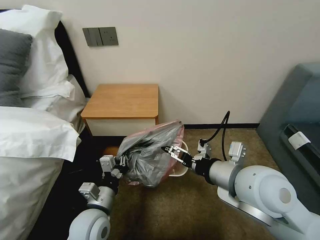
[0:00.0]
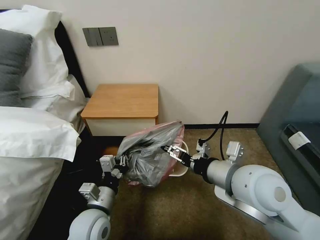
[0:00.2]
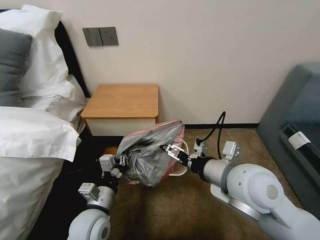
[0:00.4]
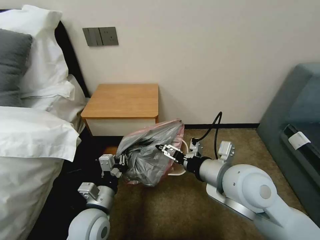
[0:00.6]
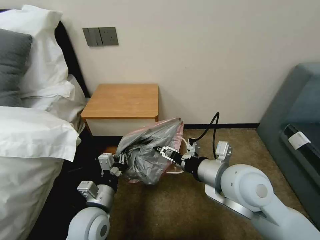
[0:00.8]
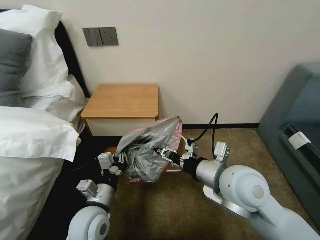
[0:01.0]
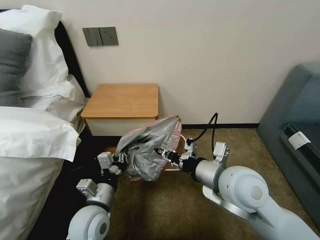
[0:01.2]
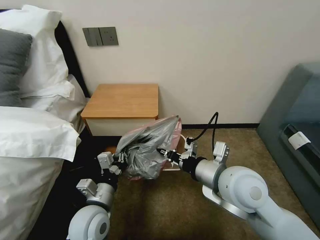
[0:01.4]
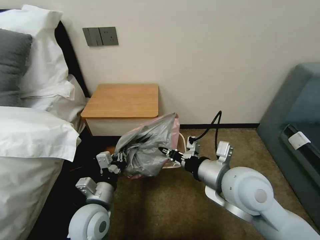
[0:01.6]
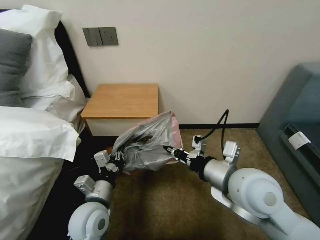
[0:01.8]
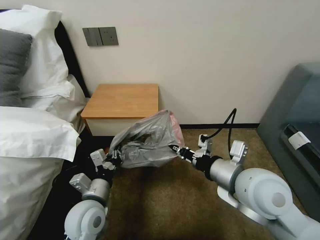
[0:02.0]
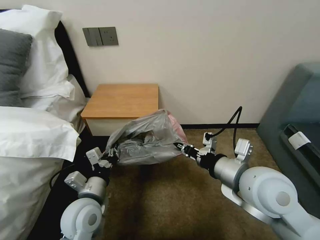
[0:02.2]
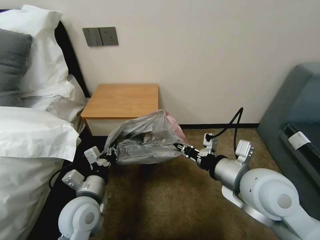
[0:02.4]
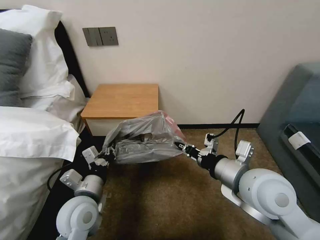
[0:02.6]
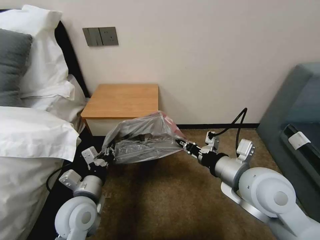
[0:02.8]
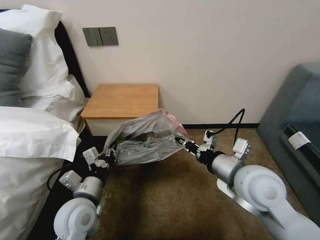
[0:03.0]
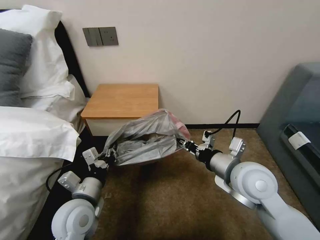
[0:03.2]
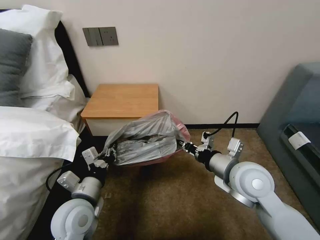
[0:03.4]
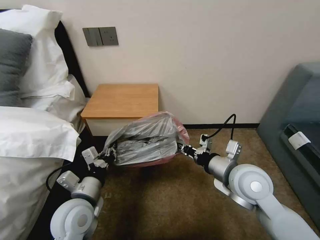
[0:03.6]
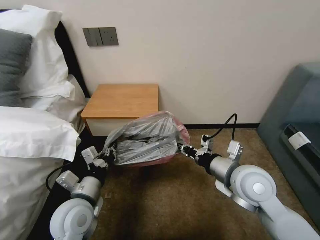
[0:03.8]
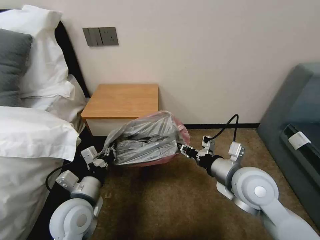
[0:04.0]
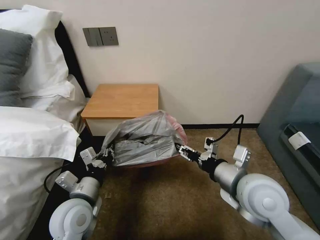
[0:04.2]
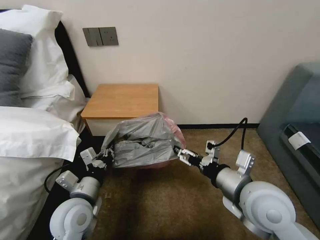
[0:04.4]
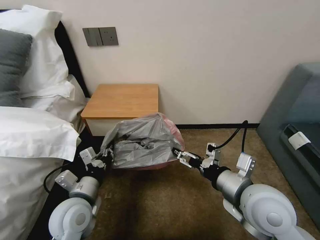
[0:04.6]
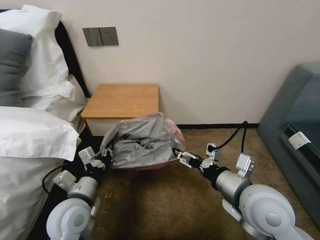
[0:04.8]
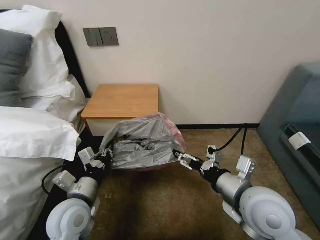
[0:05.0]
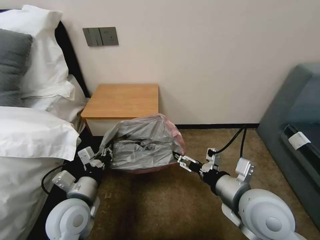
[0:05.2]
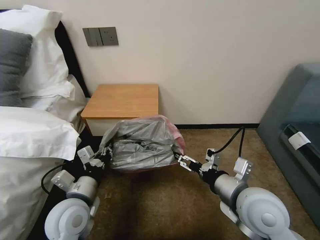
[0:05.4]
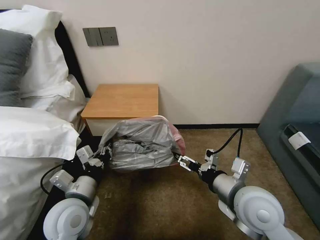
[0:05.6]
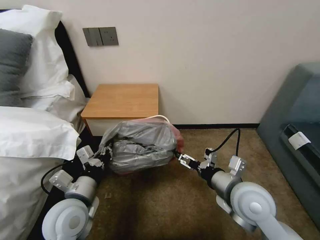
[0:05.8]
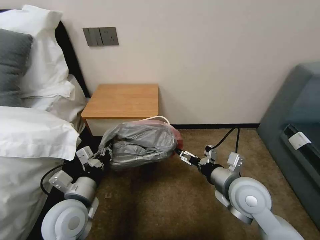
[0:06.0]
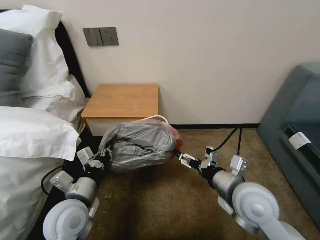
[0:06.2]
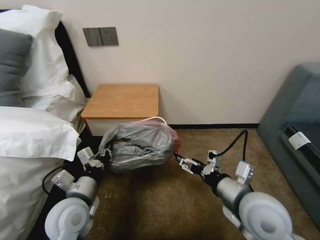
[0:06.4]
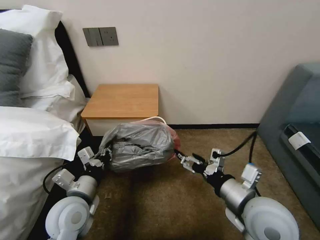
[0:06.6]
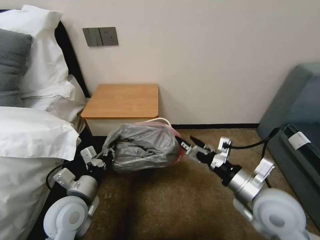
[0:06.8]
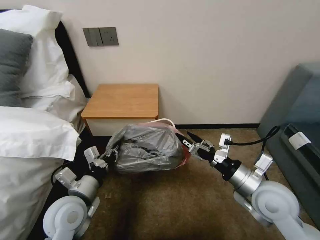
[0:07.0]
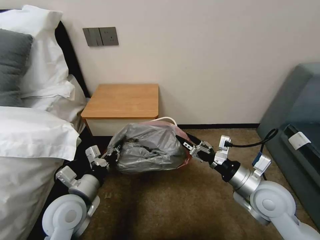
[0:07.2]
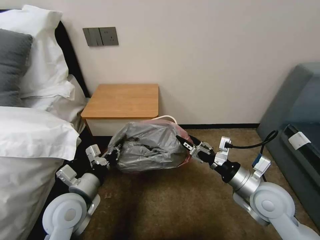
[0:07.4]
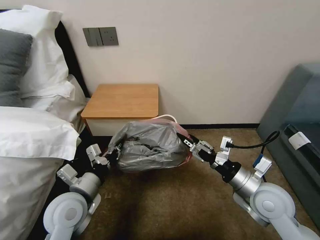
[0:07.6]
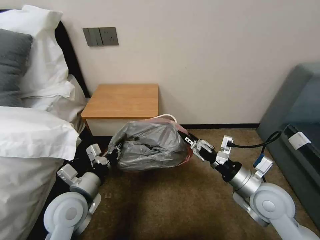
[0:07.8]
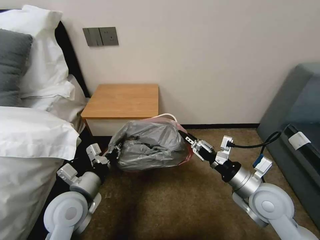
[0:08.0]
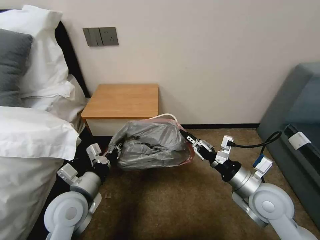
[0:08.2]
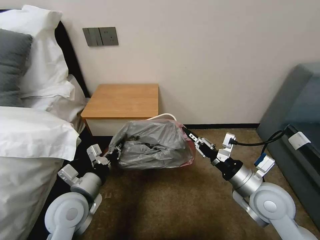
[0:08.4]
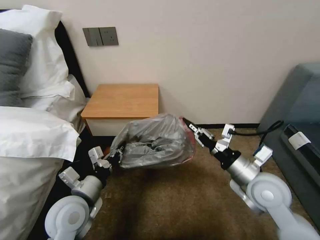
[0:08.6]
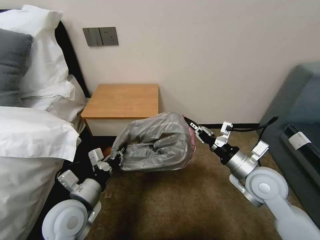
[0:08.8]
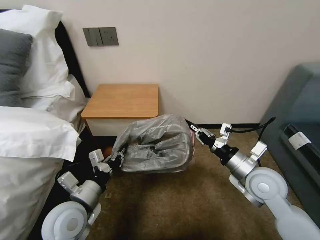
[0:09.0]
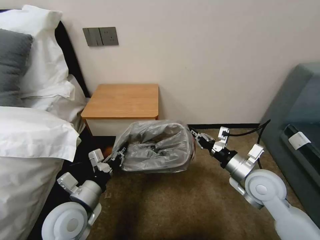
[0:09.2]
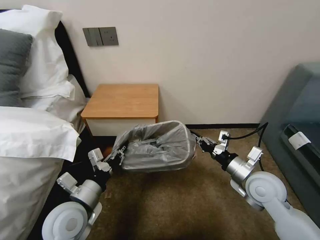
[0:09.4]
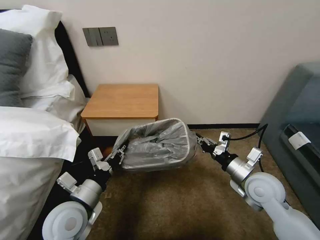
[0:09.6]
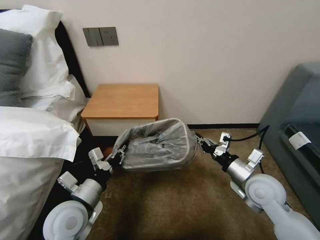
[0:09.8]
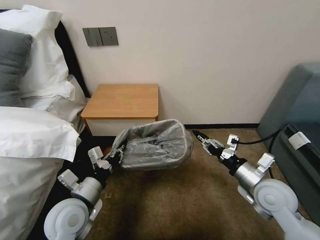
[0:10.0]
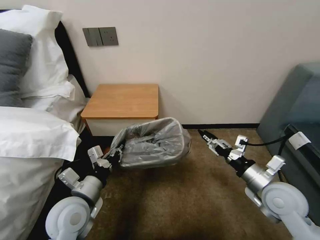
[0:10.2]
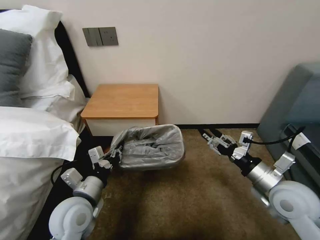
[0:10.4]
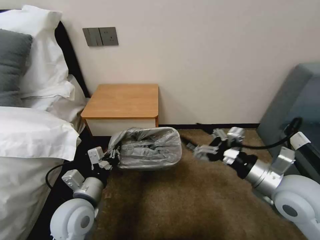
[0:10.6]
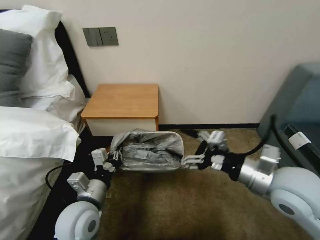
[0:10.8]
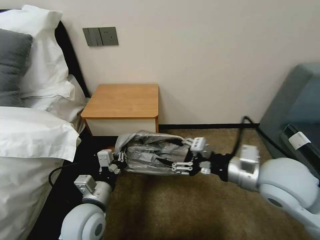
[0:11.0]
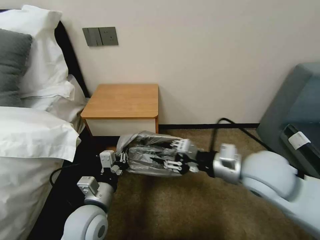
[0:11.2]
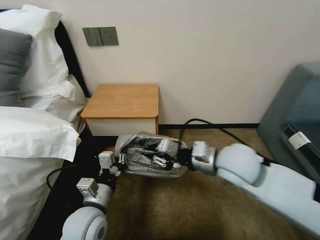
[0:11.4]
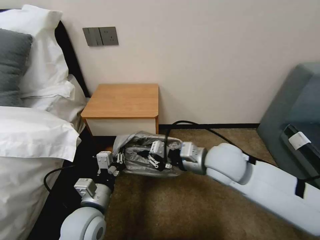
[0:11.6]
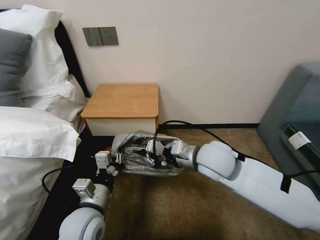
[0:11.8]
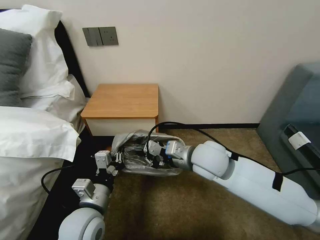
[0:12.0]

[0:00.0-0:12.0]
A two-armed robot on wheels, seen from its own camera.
Task of the whole recording: Pick up the garbage bag from the table and place it over the trash can.
0:00.0 to 0:01.6: The right gripper closes up.
0:01.6 to 0:03.0: The grippers stay close to where they were, moving slightly.
0:03.0 to 0:04.4: The right gripper opens up.
0:04.4 to 0:06.0: The right gripper is displaced downward by approximately 5 cm.
0:06.0 to 0:07.6: The right gripper travels to the right by approximately 5 cm.
0:07.6 to 0:09.0: The right gripper closes.
0:09.0 to 0:10.4: The right gripper ends up some 5 cm from where it was, and opens its fingers.
0:10.4 to 0:12.0: The right gripper is displaced to the left and forward by approximately 20 cm, and closes its fingers.

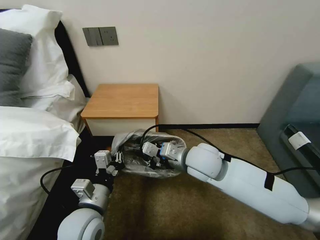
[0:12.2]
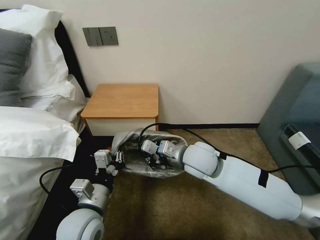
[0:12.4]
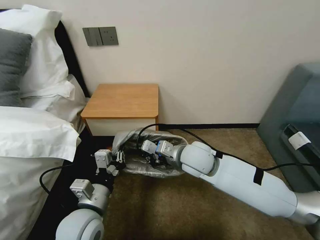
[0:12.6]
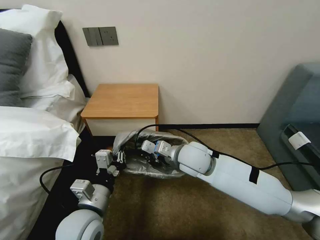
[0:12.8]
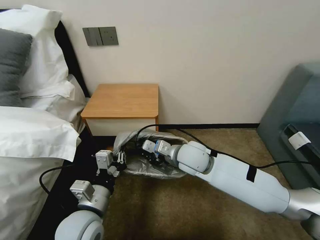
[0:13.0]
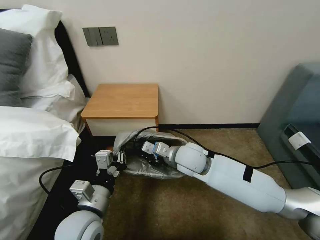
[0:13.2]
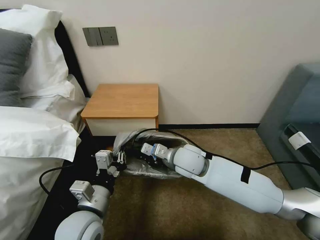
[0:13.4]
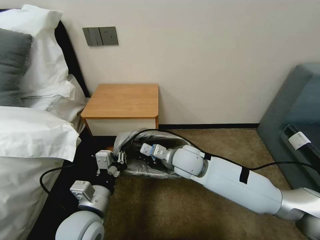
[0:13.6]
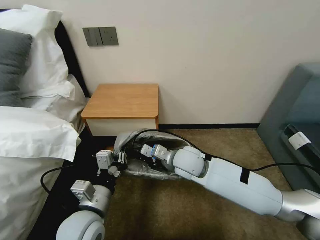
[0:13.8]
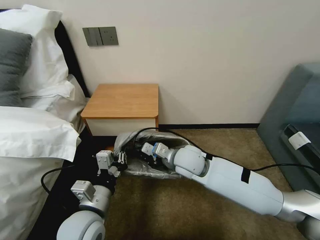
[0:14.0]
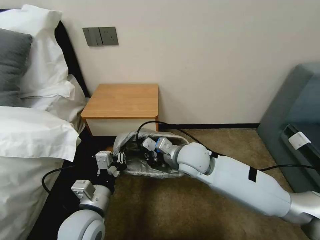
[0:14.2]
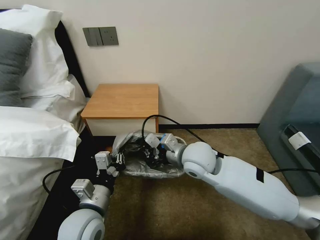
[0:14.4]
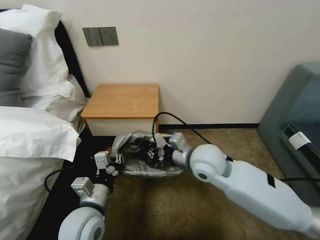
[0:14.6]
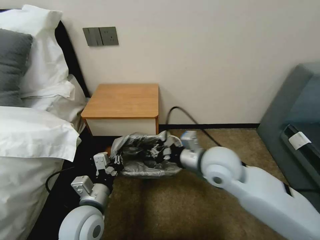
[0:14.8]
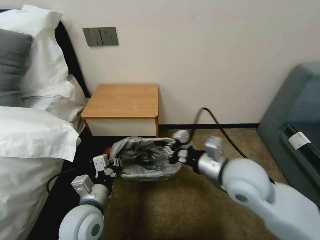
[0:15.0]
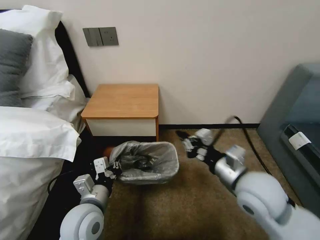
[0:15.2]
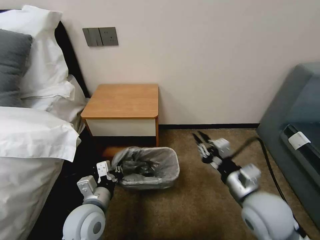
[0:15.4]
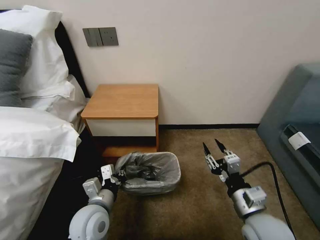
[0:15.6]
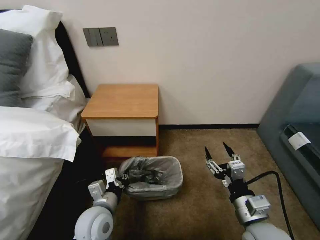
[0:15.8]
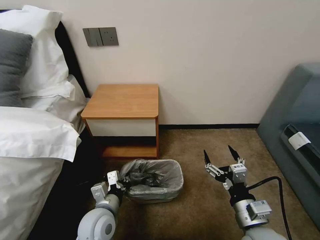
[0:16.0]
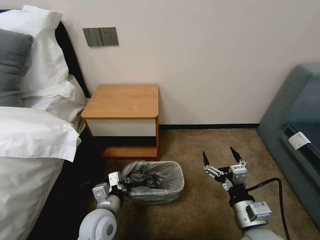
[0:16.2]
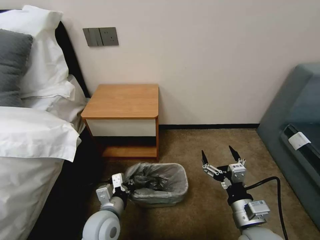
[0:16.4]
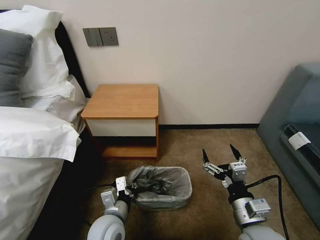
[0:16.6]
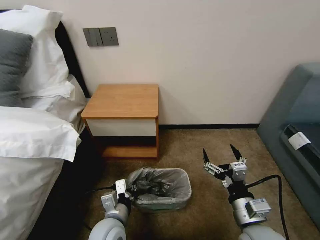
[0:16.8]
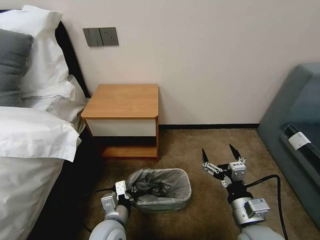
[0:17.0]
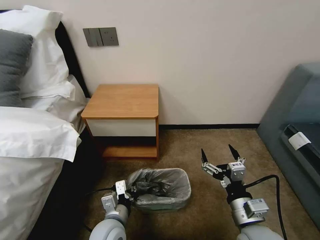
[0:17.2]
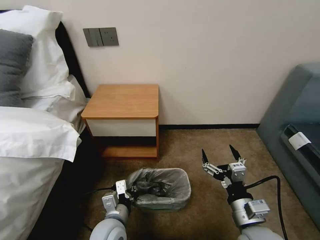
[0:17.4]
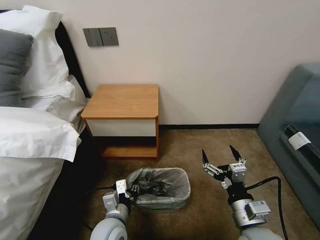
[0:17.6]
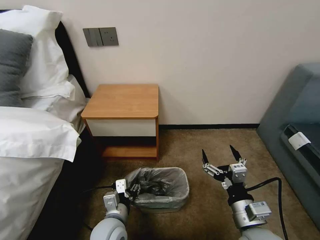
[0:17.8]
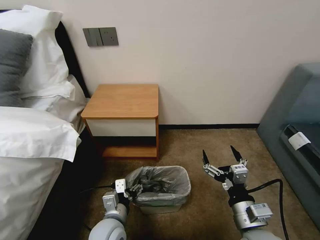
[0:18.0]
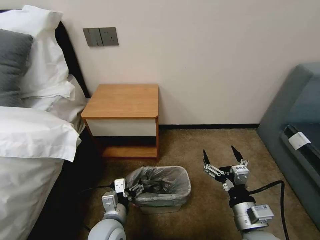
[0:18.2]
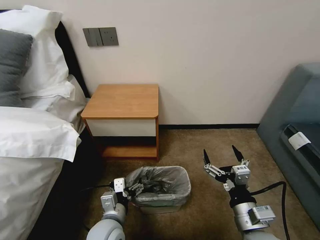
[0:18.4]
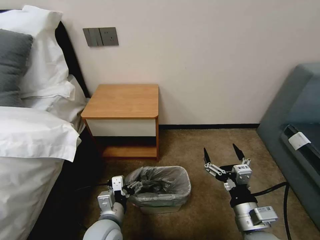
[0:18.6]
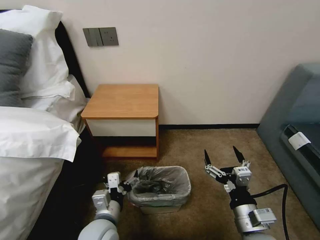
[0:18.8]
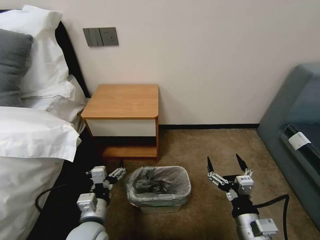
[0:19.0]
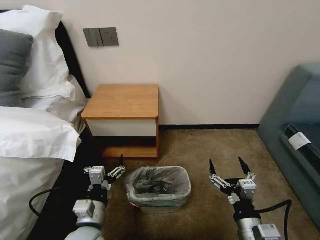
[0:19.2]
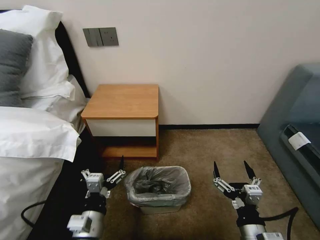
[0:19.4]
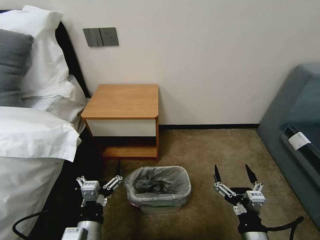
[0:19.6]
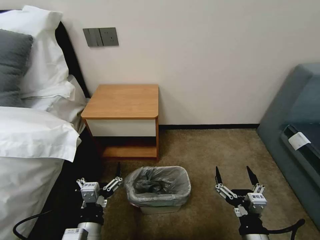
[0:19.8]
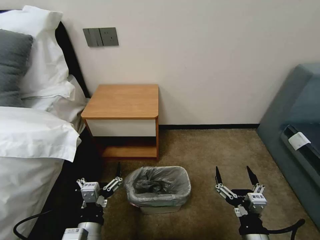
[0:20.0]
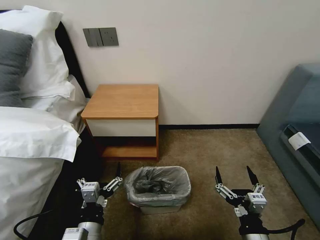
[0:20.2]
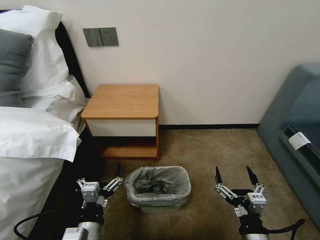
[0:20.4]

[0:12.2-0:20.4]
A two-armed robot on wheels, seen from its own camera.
Task of the whole recording: Pick up the garbage bag from the table and place it over the trash can.
0:12.2 to 0:13.8: The right gripper travels downward by approximately 5 cm.
0:13.8 to 0:15.4: The right gripper travels to the right and backward by approximately 25 cm.
0:15.4 to 0:17.2: The left gripper moves downward, roughly 5 cm, while the right gripper changes place by approximately 5 cm, and opens up.
0:17.2 to 0:18.8: The left gripper opens.
0:18.8 to 0:20.4: The two grippers go approximately 5 cm backward.
